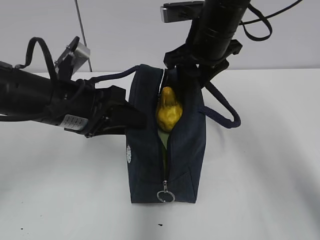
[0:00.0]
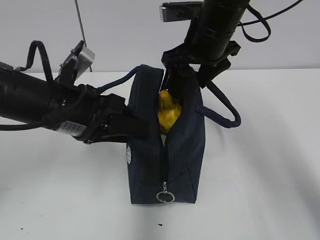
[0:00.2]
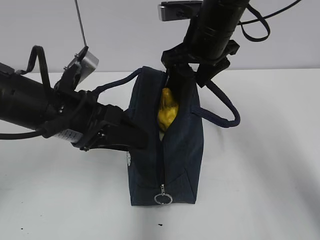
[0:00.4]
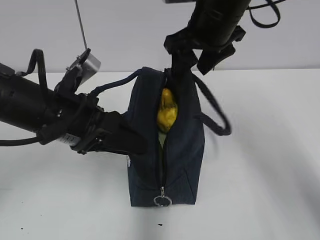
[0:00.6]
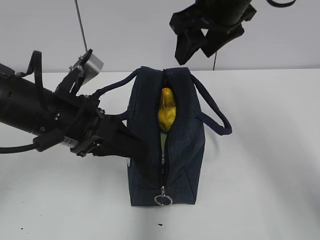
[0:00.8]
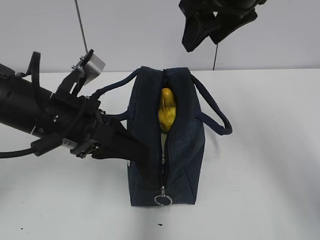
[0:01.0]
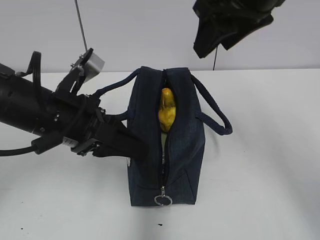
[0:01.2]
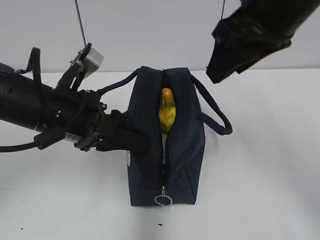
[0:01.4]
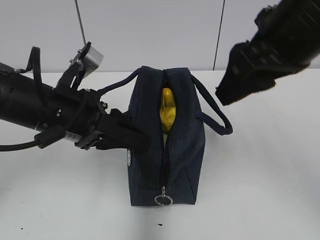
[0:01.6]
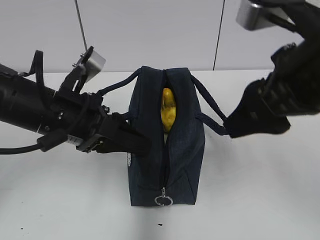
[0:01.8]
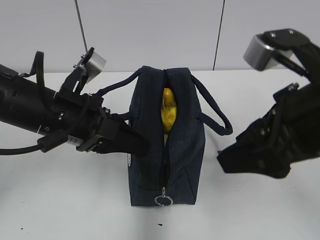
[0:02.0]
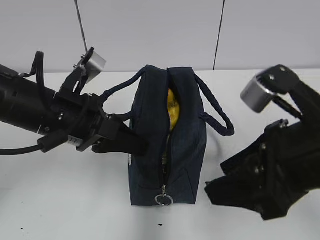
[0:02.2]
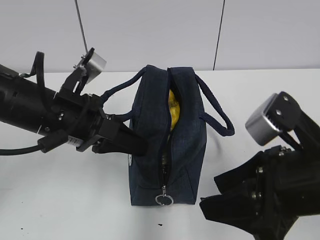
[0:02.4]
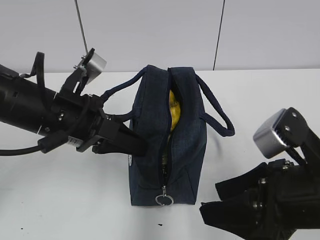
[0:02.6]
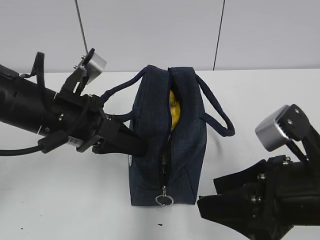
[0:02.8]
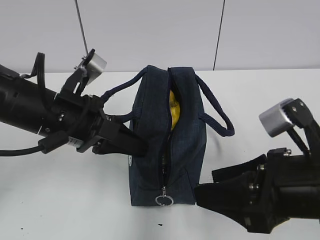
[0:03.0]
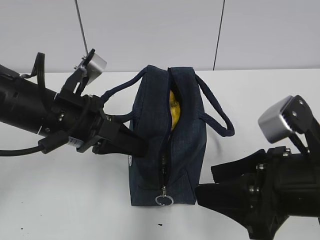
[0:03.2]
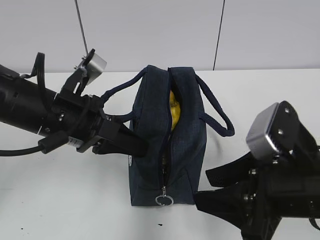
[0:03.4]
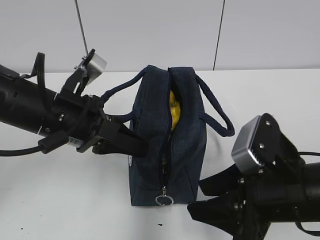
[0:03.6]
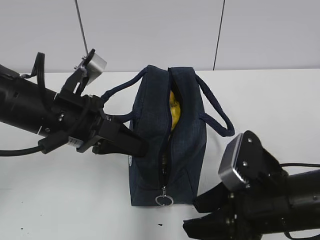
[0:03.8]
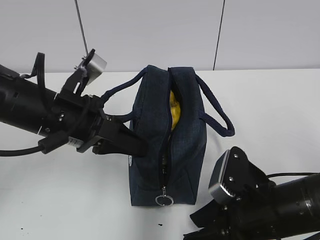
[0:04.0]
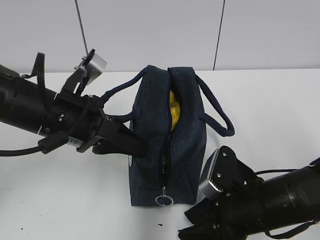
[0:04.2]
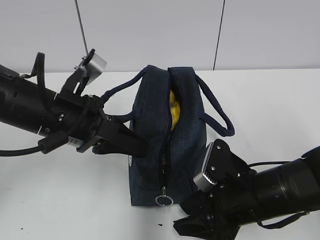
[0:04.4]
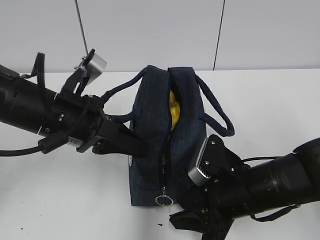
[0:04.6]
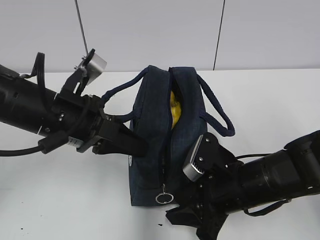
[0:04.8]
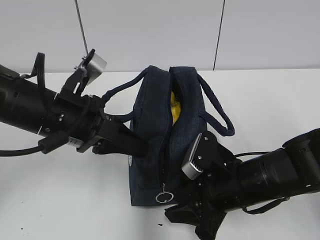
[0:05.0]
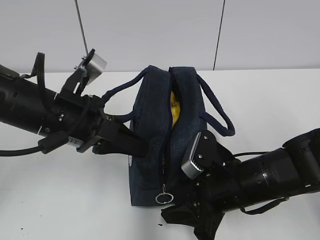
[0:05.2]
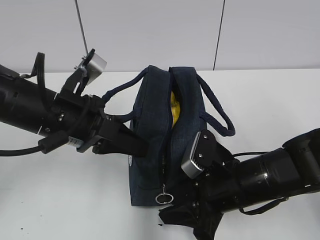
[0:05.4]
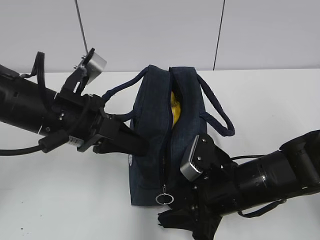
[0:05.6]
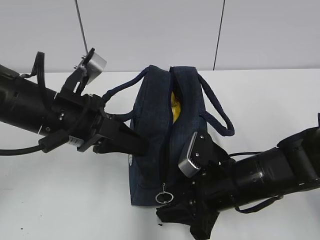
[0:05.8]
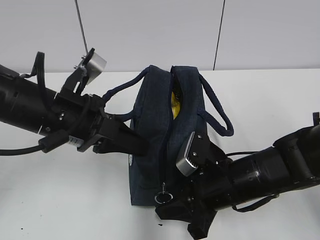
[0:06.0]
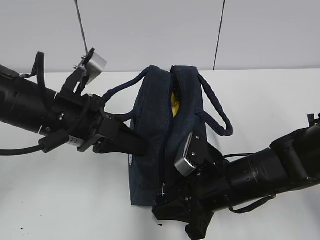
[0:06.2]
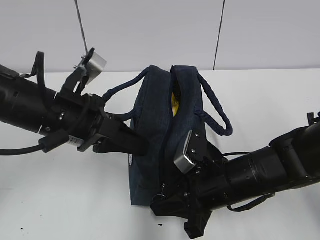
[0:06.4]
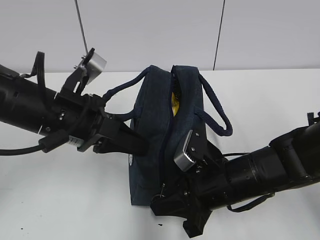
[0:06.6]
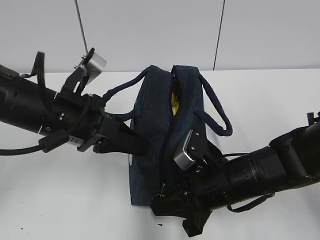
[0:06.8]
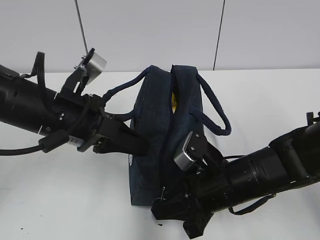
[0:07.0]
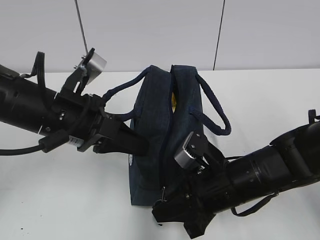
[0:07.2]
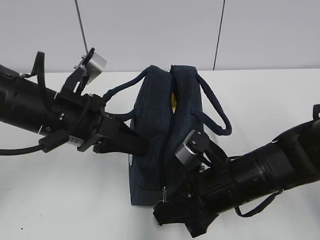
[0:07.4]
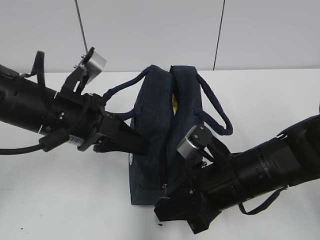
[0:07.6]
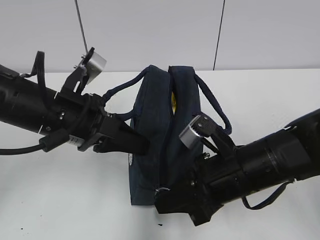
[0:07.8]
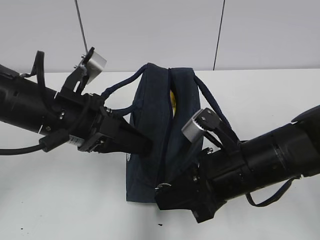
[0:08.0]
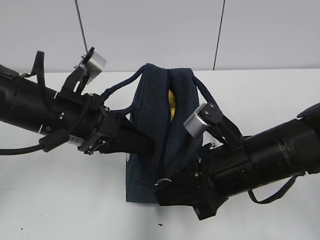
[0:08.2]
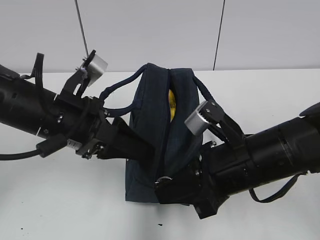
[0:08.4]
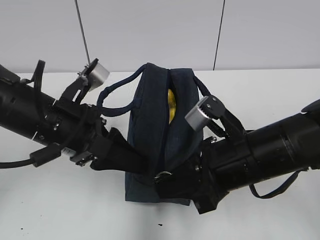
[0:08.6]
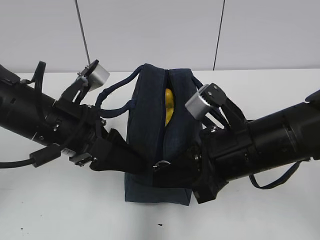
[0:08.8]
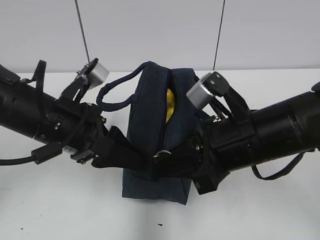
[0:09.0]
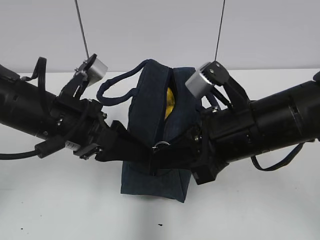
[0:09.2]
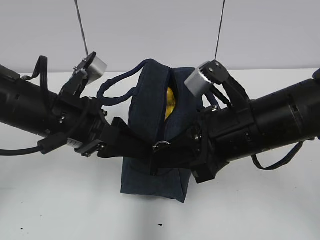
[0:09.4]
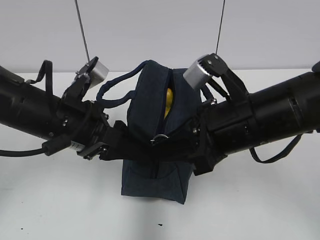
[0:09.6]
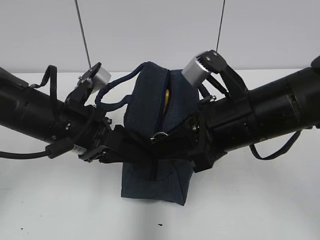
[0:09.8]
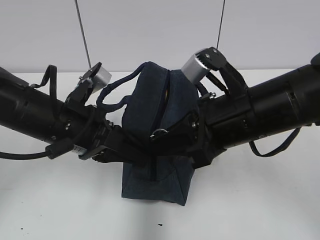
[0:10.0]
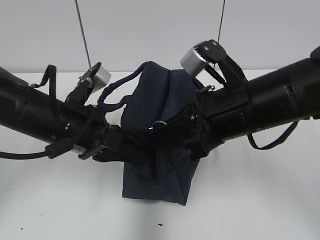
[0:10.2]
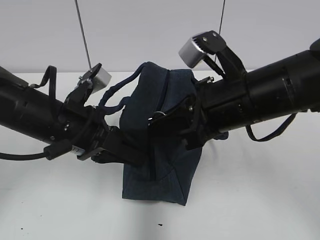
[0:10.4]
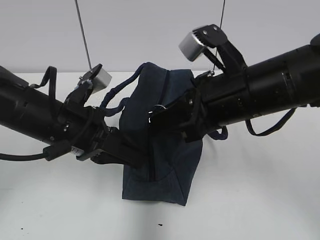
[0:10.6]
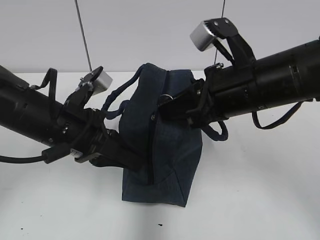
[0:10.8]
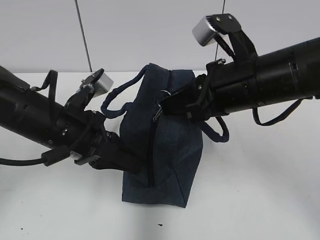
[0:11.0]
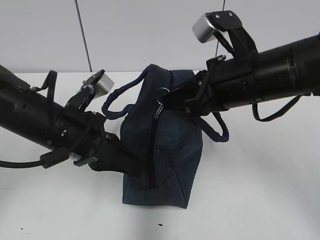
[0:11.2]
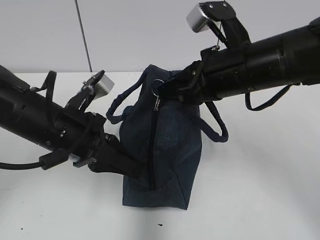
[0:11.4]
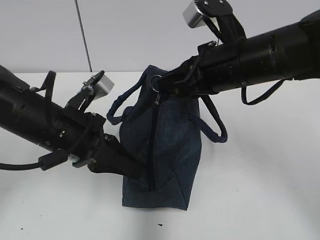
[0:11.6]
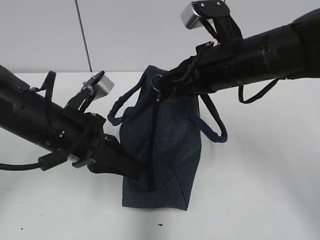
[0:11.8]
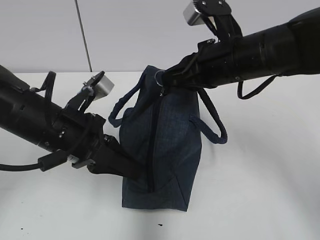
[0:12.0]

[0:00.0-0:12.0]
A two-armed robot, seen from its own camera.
0:00.0 to 0:01.6: The right gripper heads backward, covering roughly 15 cm.
0:01.6 to 0:03.0: The right gripper is displaced downward and backward by approximately 15 cm. Meanwhile the left gripper closes its fingers.
0:03.0 to 0:04.4: The right gripper heads downward and forward, covering roughly 10 cm.
0:04.4 to 0:06.0: The grippers make only small movements.
0:06.0 to 0:07.6: The right gripper closes its fingers.
0:07.6 to 0:09.0: The right gripper heads upward, covering approximately 10 cm; the left gripper opens.
0:09.0 to 0:10.4: The left gripper closes up.
0:10.4 to 0:12.0: The right gripper travels forward by approximately 10 cm.

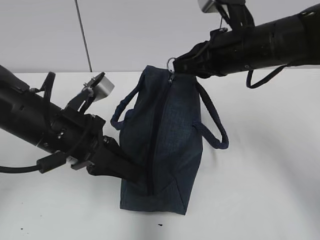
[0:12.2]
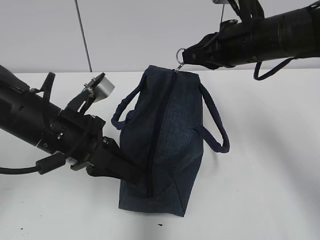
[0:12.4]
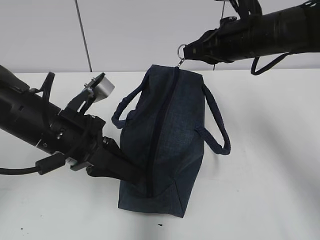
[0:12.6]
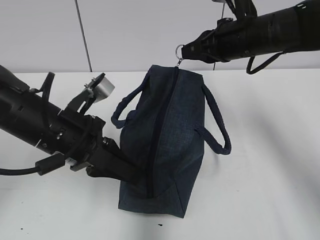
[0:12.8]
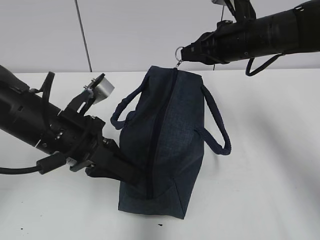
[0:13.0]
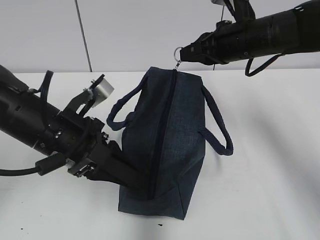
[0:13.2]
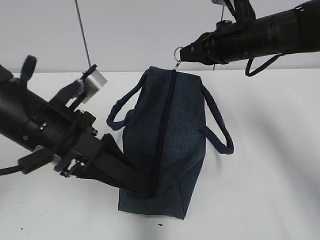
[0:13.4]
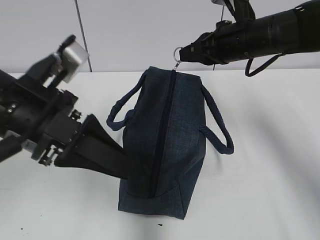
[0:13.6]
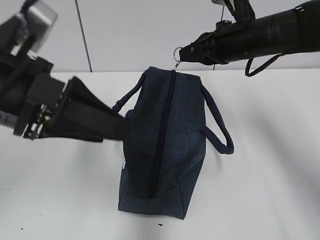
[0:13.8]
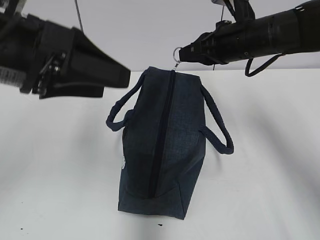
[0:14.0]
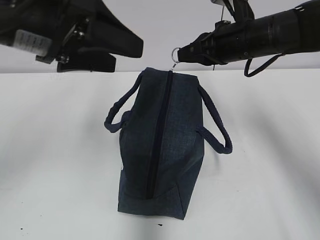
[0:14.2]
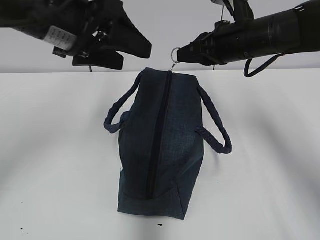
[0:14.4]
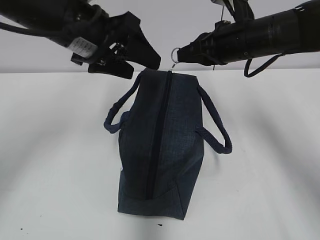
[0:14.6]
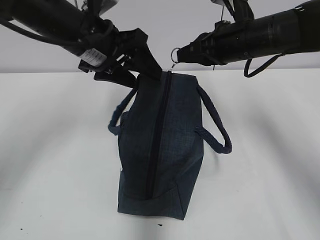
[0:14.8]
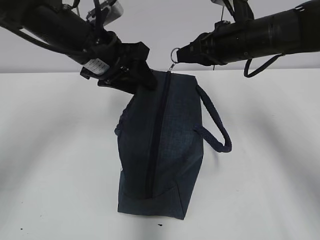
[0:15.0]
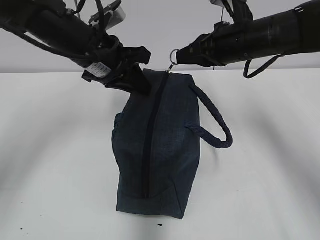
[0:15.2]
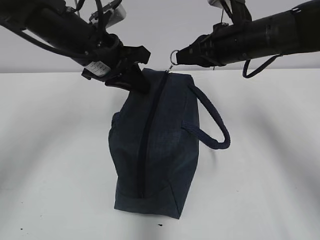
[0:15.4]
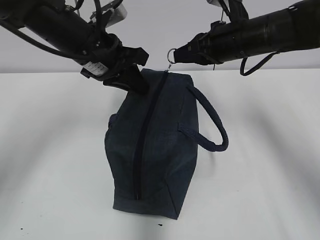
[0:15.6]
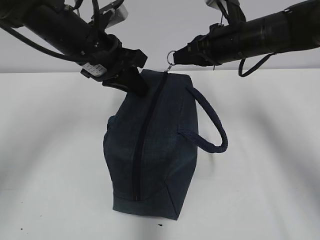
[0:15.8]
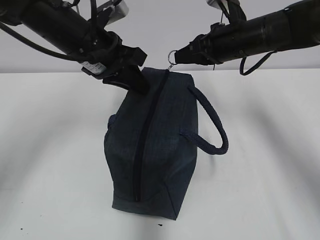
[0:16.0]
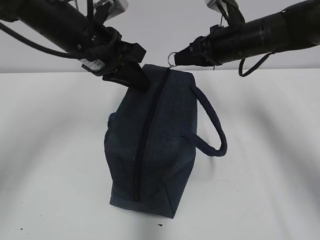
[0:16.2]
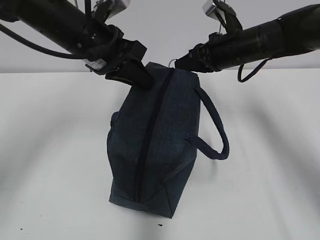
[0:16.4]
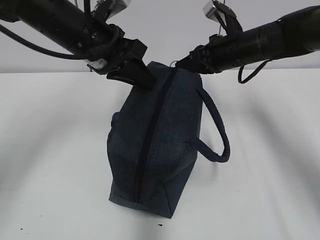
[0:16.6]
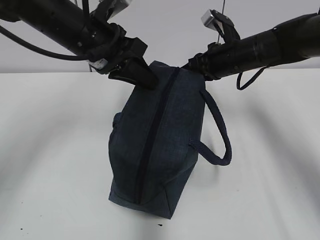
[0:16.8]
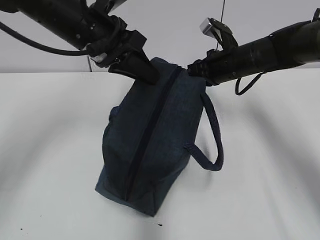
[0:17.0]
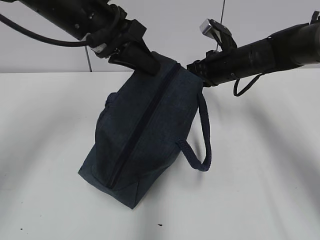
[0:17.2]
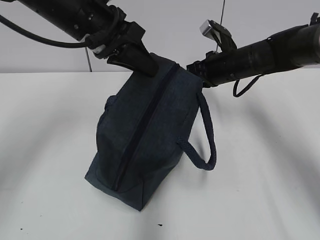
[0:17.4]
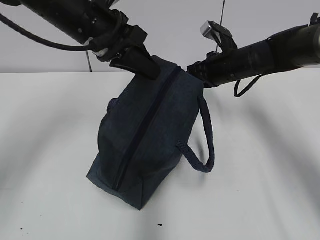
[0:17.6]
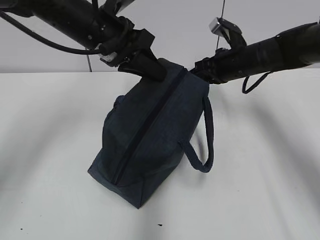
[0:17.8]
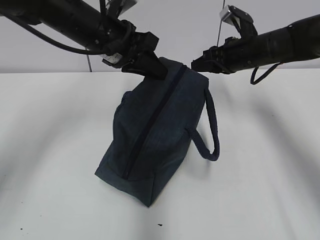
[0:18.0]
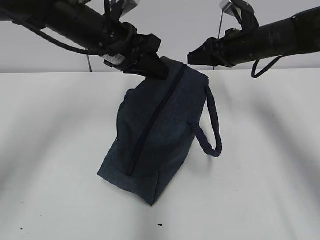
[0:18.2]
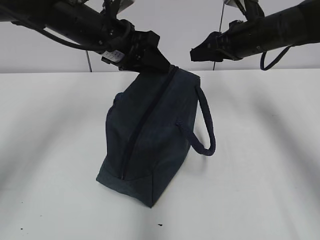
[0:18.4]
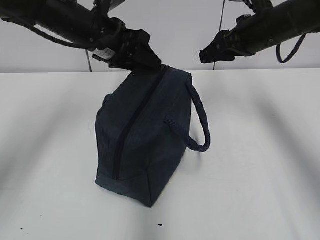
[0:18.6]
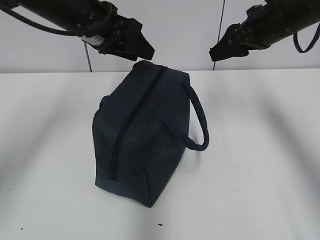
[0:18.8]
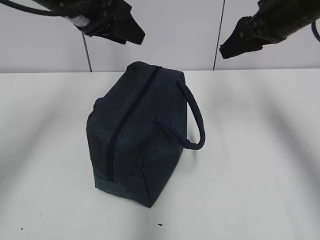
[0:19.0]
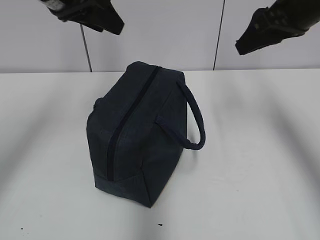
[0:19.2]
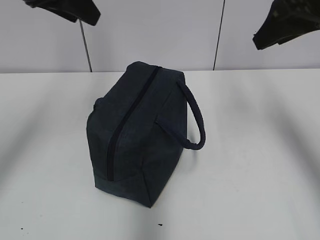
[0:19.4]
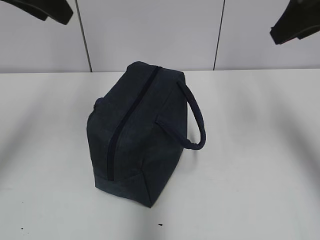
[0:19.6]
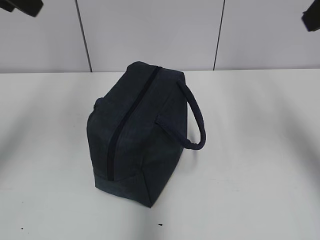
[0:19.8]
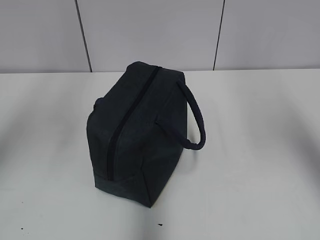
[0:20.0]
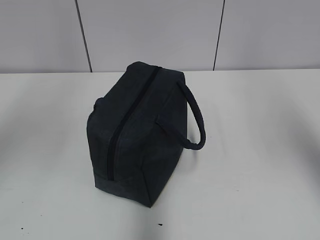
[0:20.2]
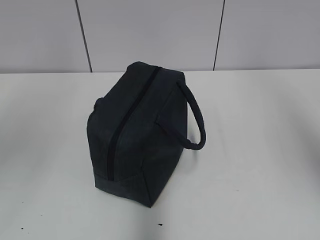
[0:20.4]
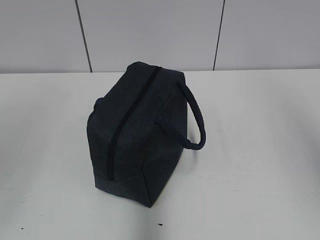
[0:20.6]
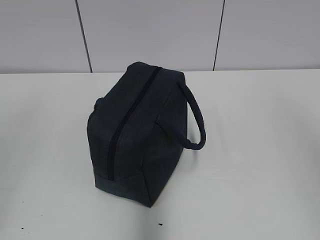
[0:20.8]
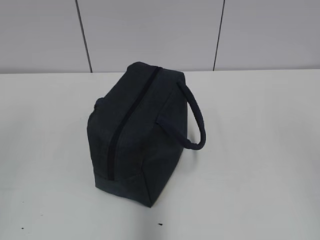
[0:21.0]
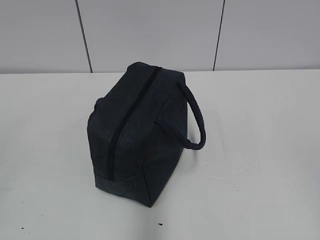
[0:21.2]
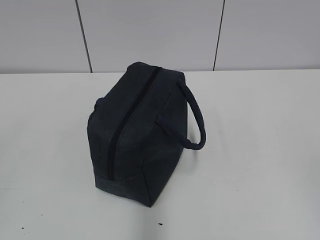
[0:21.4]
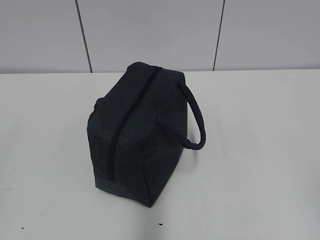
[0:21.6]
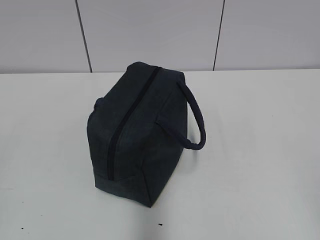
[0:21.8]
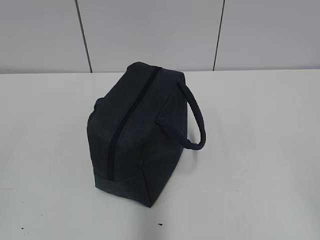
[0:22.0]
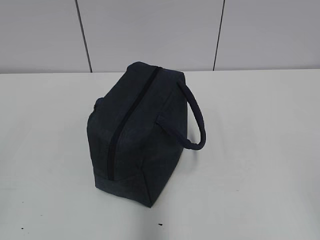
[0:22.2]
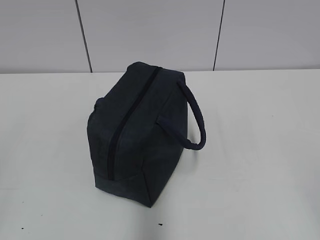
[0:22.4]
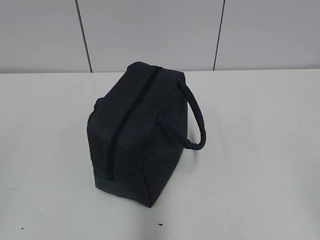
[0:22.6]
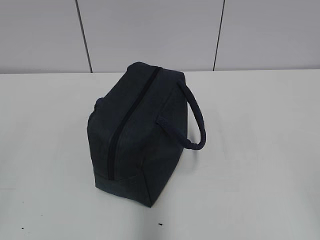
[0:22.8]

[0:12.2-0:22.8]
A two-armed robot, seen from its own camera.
0:12.2 to 0:13.8: The right gripper ends up about 5 cm from where it was, while the left gripper goes approximately 10 cm upward and backward, and opens up.
0:13.8 to 0:15.2: The left gripper goes about 15 cm forward, and closes.
0:15.2 to 0:16.8: The right gripper is displaced downward by some 5 cm.
0:16.8 to 0:18.2: The right gripper opens.
0:18.2 to 0:19.8: The right gripper goes some 30 cm backward and upward; the left gripper goes some 25 cm upward, backward and to the left, and opens.
0:19.8 to 0:21.2: Both grippers travel together backward, some 30 cm.
